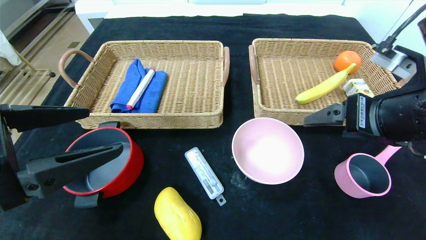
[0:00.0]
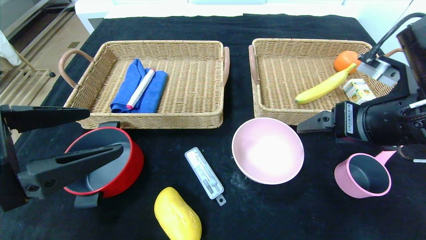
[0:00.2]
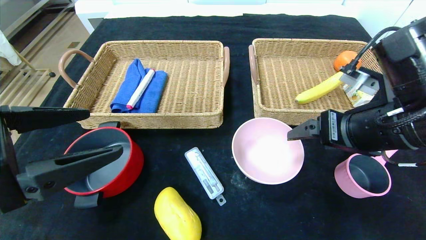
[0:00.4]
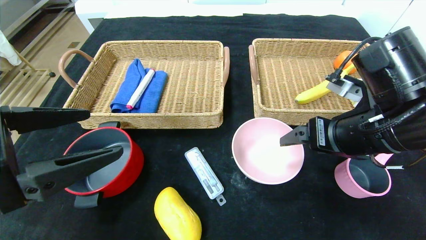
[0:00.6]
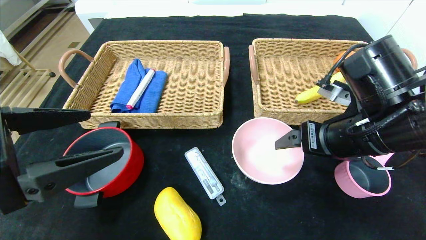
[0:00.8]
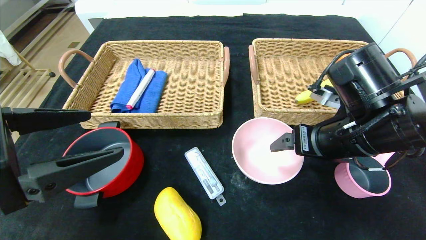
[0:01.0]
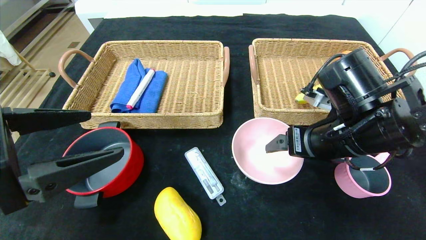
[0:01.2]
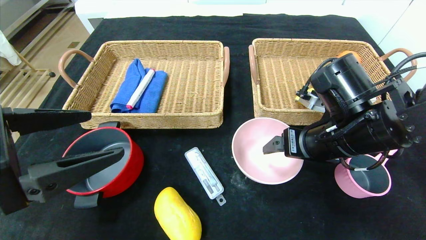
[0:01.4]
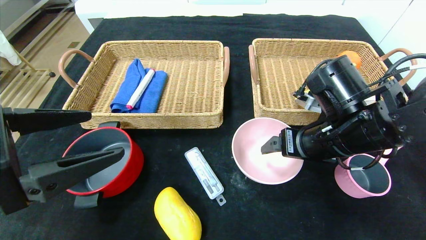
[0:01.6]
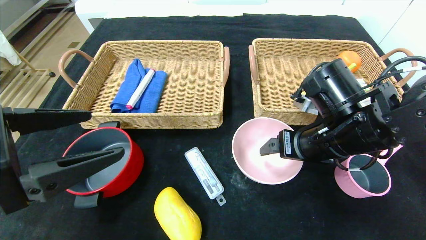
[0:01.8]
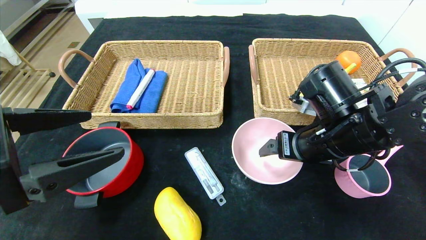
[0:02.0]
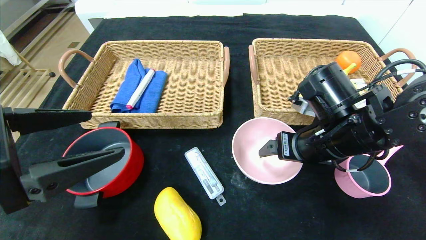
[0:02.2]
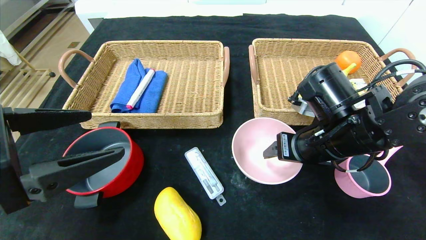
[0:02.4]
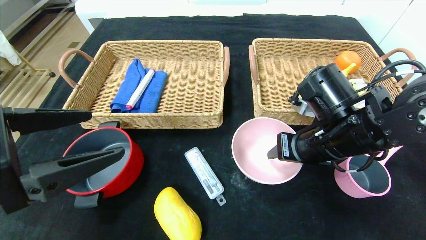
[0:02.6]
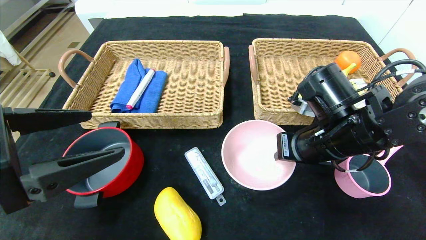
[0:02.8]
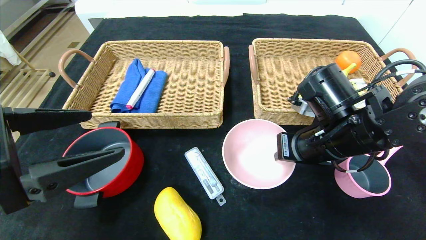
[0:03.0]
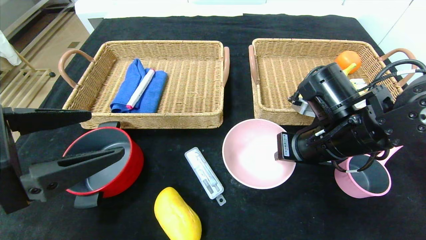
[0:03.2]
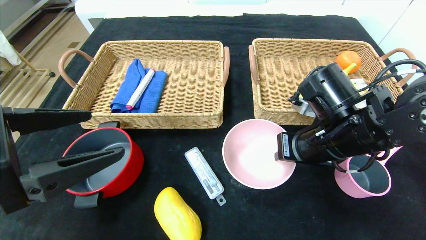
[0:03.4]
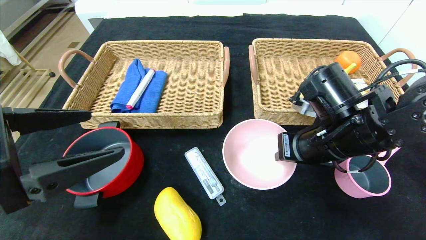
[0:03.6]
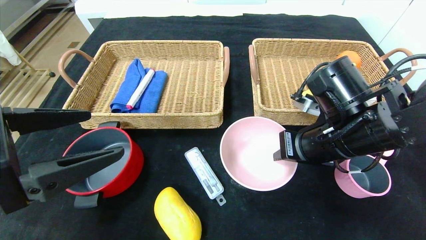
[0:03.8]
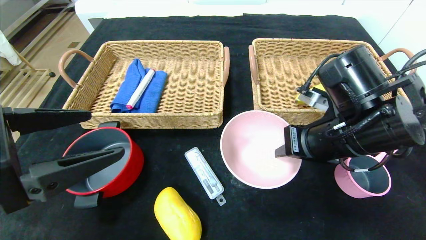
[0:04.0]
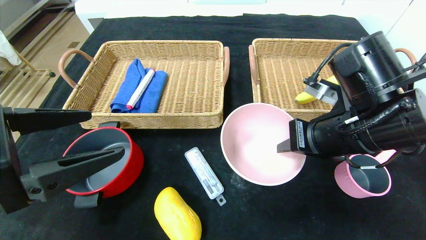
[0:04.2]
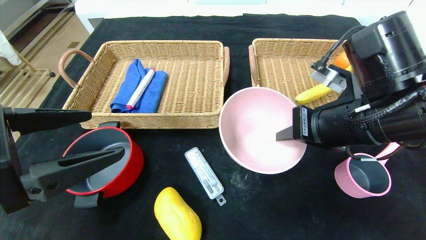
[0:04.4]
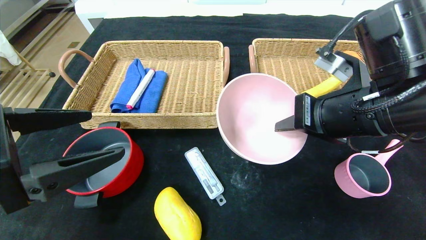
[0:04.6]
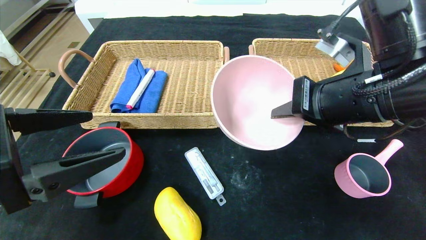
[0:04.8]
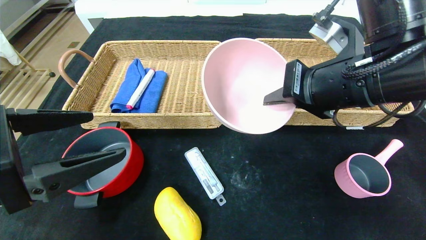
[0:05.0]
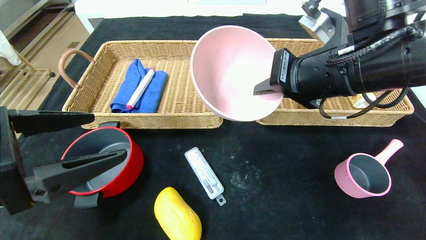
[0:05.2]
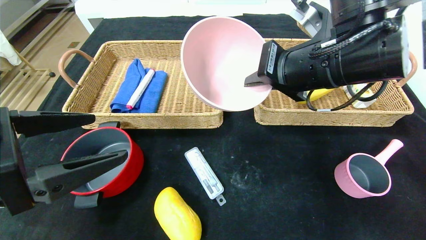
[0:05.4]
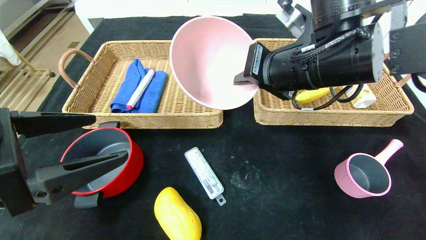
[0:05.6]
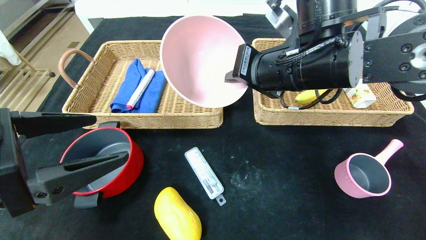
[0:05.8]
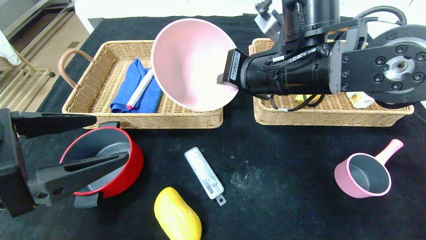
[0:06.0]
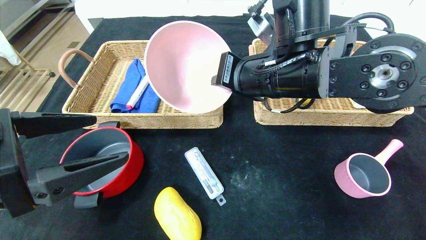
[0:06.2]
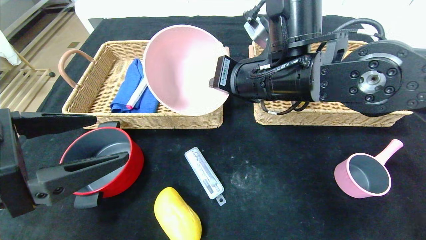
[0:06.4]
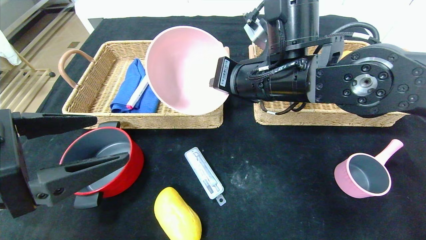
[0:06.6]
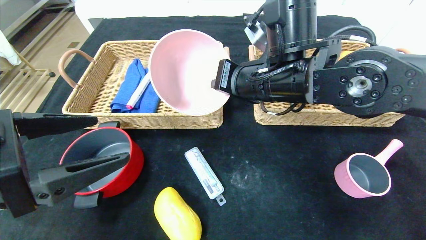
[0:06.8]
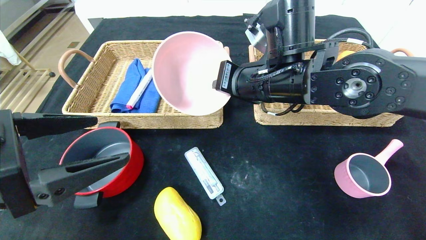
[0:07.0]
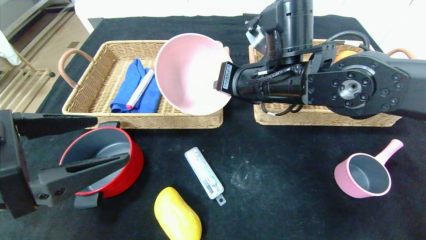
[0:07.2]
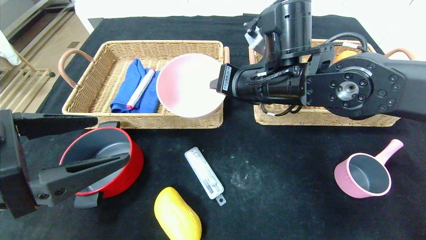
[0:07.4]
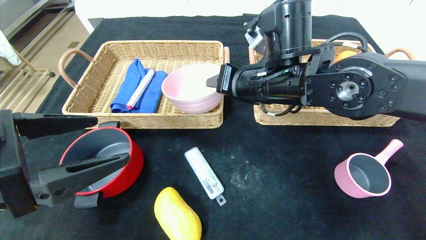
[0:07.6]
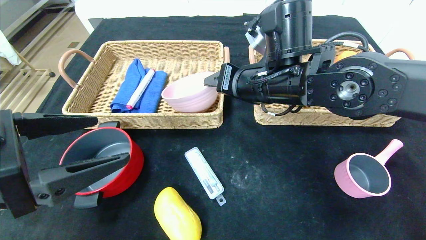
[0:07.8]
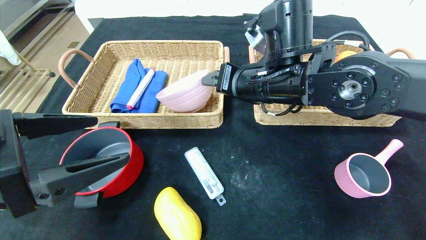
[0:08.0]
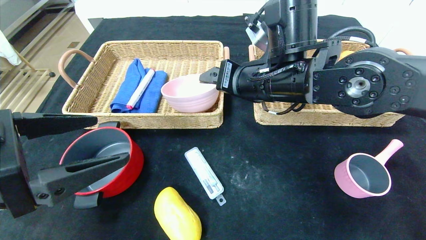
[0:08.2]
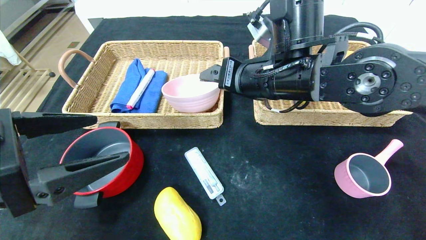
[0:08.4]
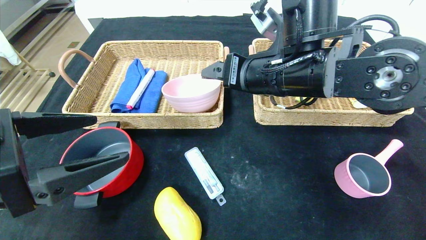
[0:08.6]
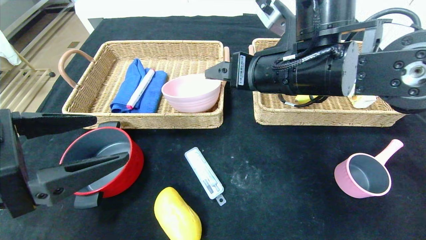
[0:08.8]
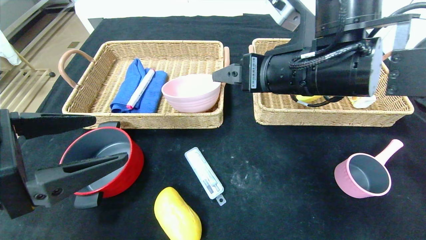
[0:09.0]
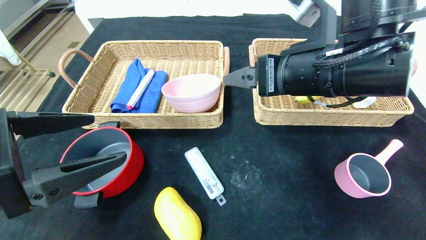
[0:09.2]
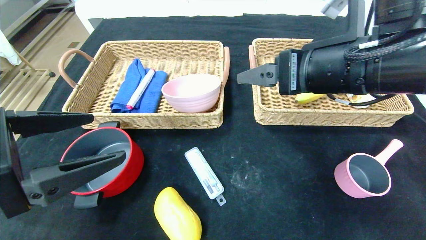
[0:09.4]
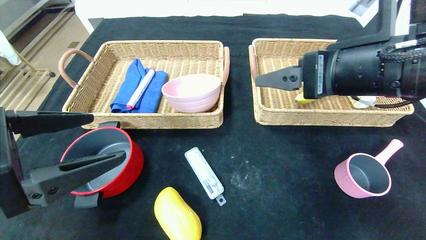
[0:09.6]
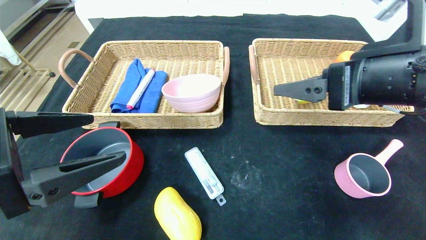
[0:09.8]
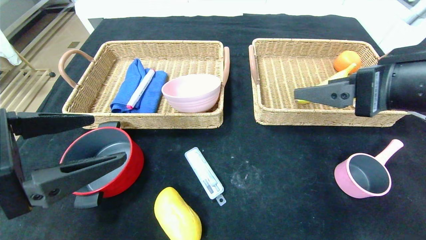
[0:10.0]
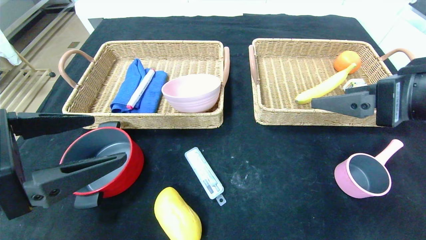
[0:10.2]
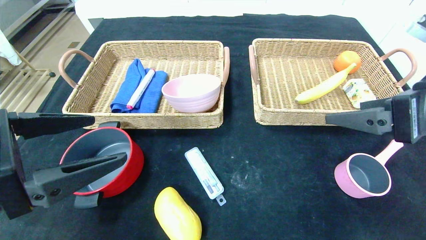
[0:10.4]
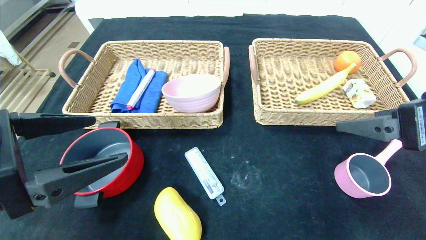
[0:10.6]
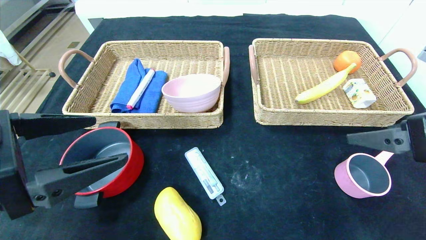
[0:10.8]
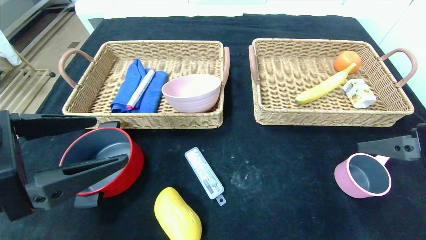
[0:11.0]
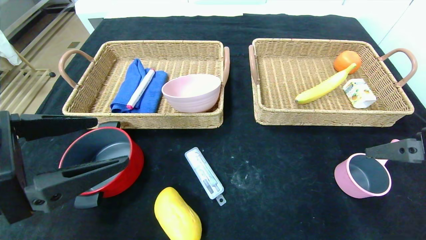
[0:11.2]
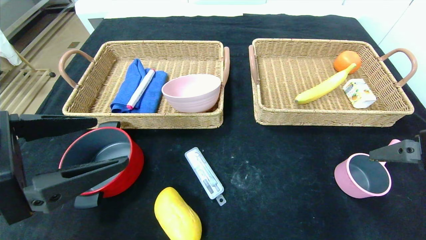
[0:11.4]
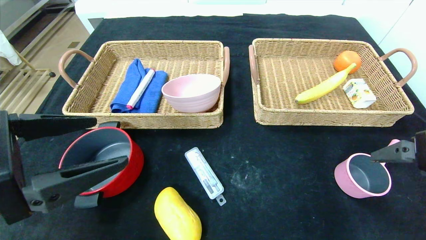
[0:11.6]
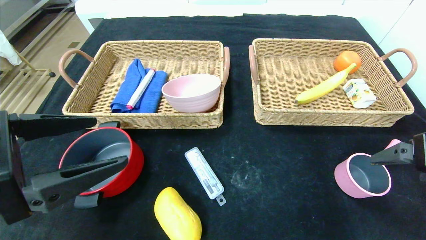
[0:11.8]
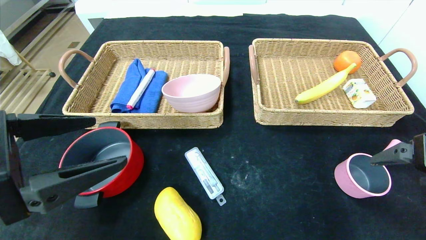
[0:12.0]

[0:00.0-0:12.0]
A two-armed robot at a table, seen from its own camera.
0:00.0 to 0:01.6: The right gripper heads downward, to the left and forward, covering roughly 10 cm.
0:01.6 to 0:03.0: The right gripper closes.
0:03.0 to 0:04.4: The right gripper travels upward by approximately 5 cm.
0:04.4 to 0:06.0: The right gripper is displaced to the left and forward by roughly 10 cm.
0:06.0 to 0:07.6: The right gripper opens its fingers.
0:07.6 to 0:09.0: The right gripper ends up roughly 5 cm from where it was, and opens its fingers.
0:09.0 to 0:10.4: The right gripper moves to the right and backward, roughly 15 cm.
0:10.4 to 0:12.0: The right gripper is displaced to the right by about 5 cm.

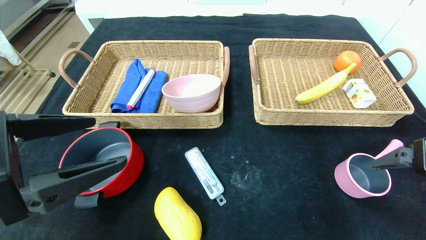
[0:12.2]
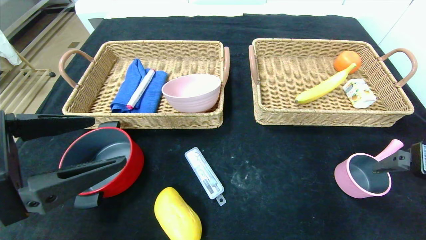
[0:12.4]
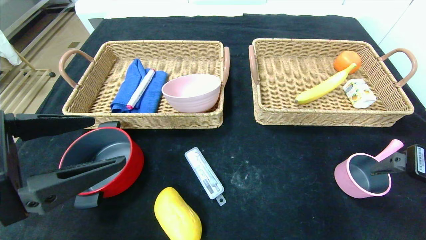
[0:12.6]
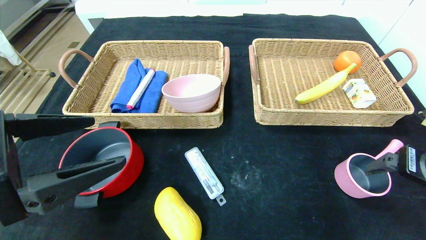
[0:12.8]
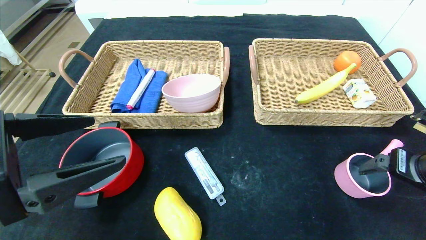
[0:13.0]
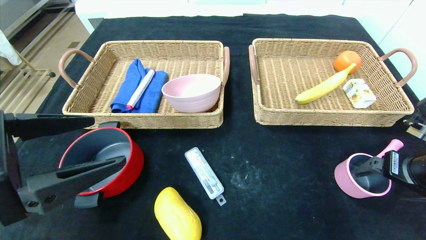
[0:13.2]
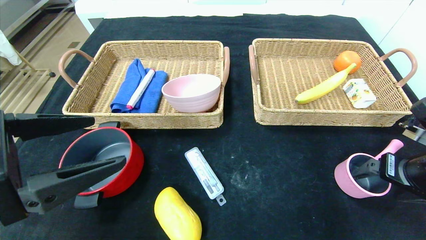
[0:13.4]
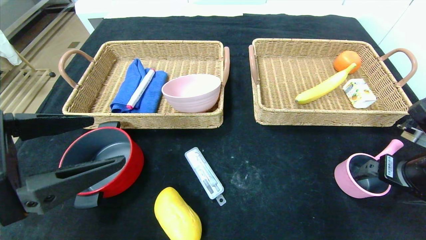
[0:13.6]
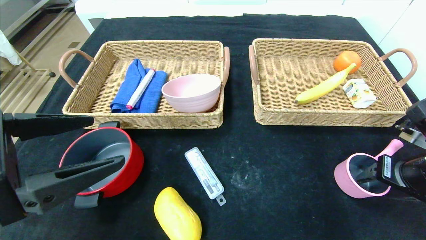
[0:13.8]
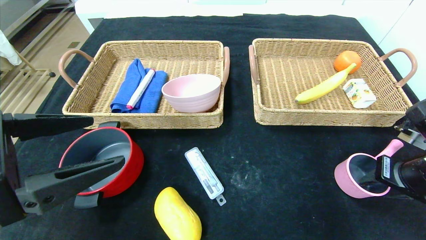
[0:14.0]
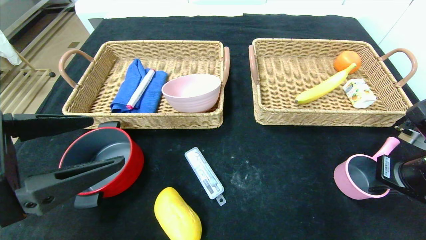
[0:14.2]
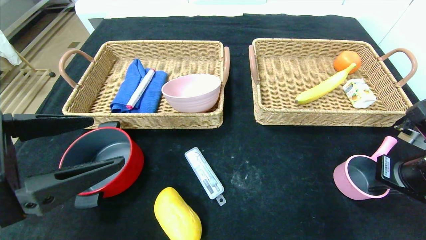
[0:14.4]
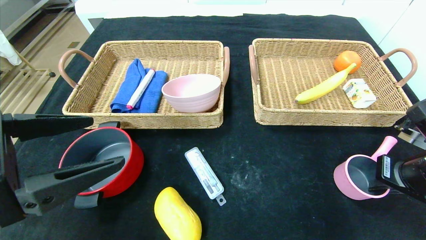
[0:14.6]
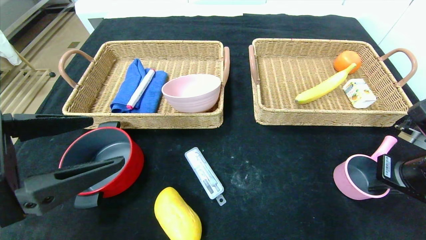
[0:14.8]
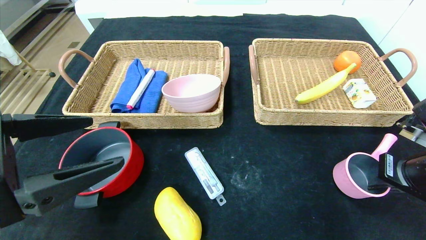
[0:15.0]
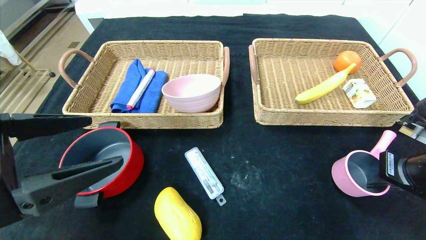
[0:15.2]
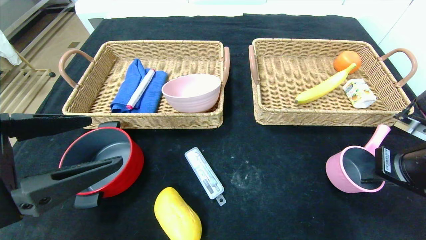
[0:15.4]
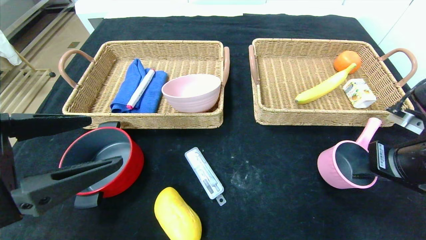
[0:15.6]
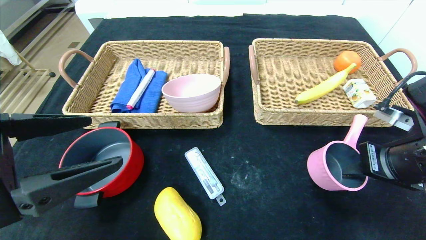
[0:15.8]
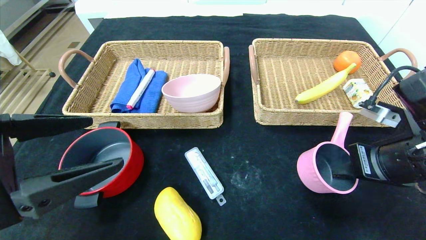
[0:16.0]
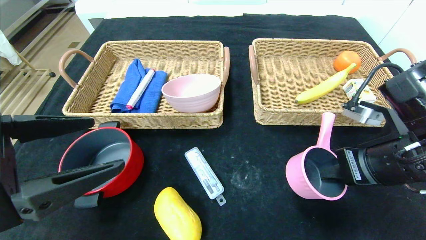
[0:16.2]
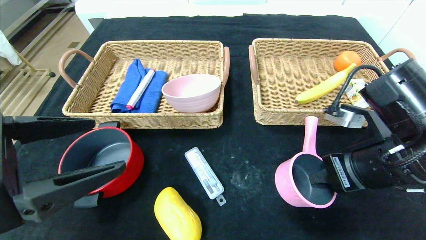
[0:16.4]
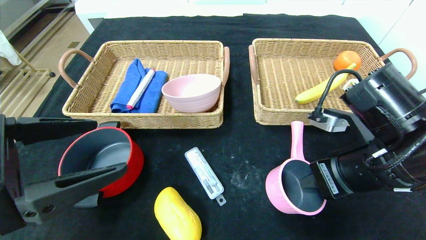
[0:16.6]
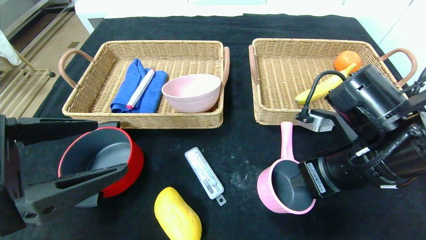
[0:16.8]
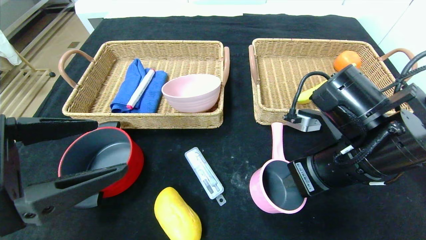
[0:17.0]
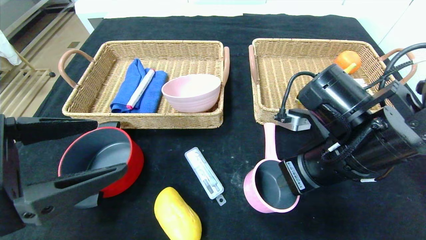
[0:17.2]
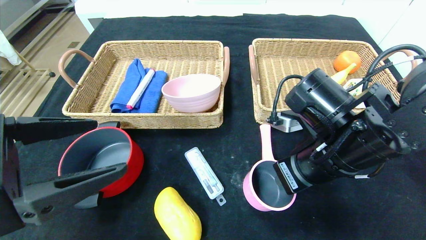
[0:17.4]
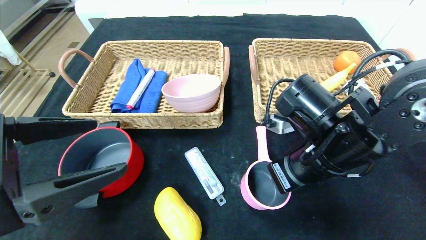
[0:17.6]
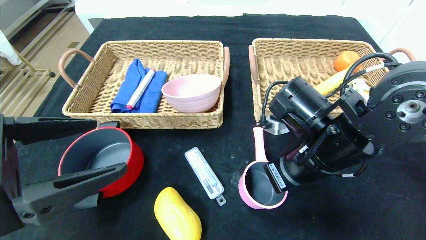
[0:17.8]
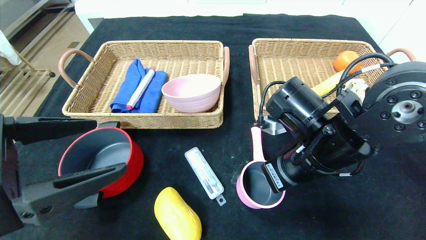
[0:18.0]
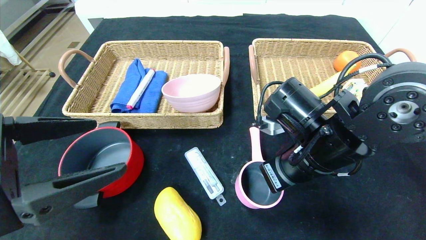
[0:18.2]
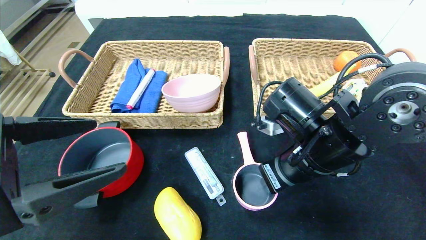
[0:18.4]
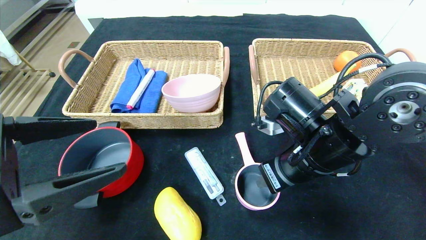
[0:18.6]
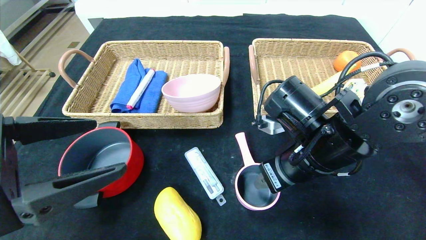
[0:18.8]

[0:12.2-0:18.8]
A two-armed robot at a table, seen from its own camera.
Step, 0:12.2 to 0:18.8: Place the pink pot in the center of the table.
0:12.2 to 0:13.8: The right gripper is displaced downward by about 5 cm.
0:13.8 to 0:15.4: The right gripper closes its fingers.
0:15.4 to 0:17.2: The right gripper is displaced to the left by some 15 cm.
0:17.2 to 0:18.8: The right gripper opens its fingers.
